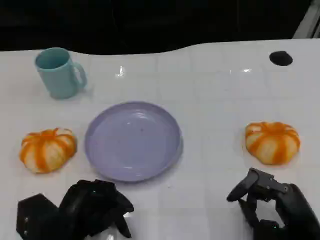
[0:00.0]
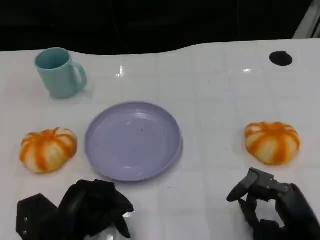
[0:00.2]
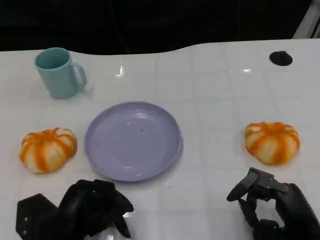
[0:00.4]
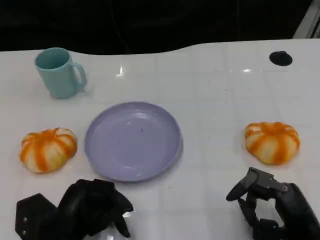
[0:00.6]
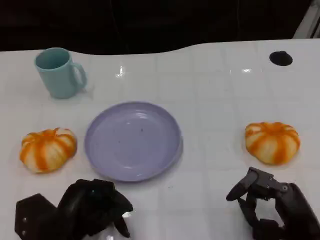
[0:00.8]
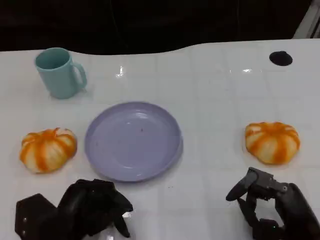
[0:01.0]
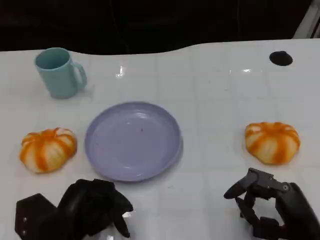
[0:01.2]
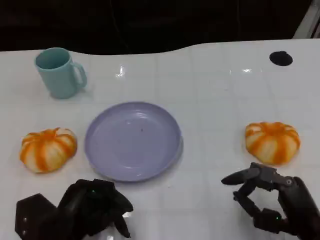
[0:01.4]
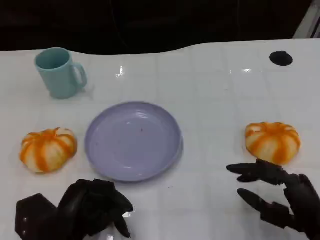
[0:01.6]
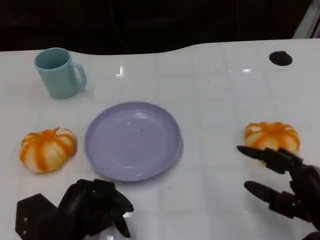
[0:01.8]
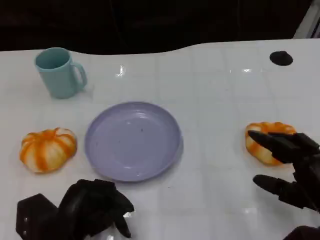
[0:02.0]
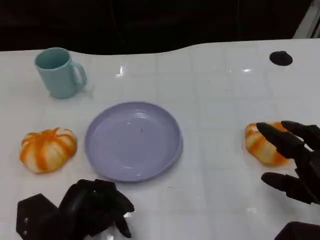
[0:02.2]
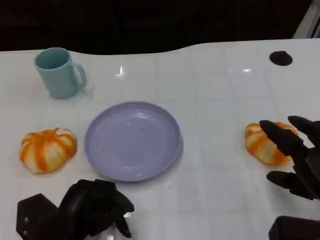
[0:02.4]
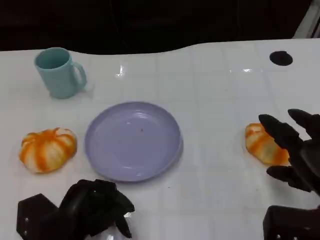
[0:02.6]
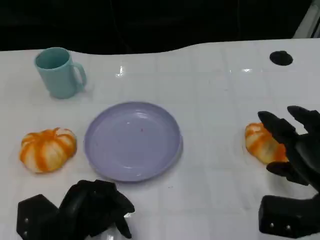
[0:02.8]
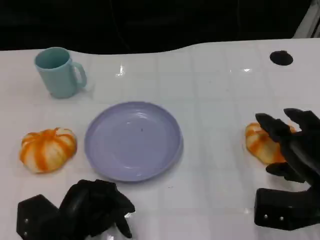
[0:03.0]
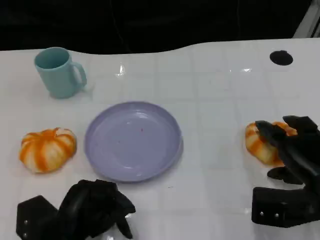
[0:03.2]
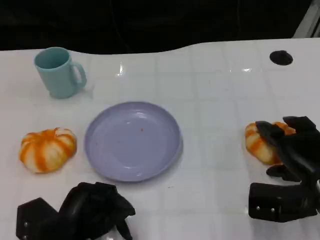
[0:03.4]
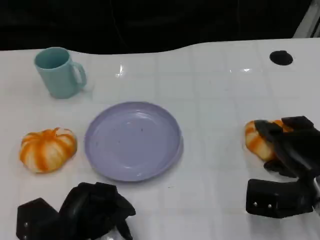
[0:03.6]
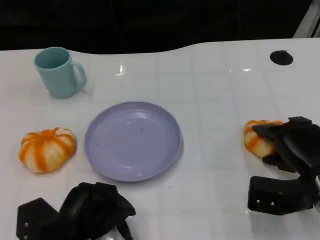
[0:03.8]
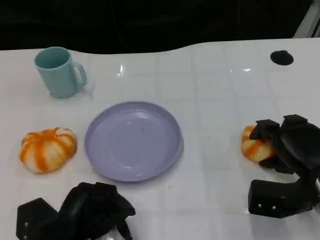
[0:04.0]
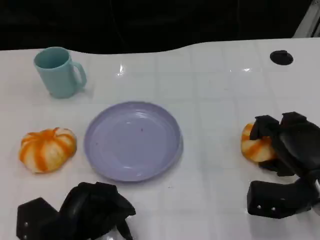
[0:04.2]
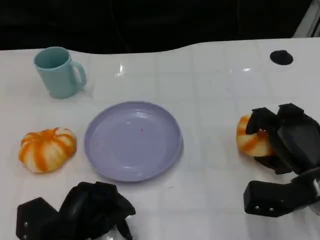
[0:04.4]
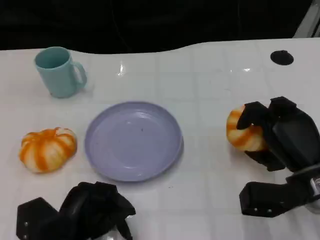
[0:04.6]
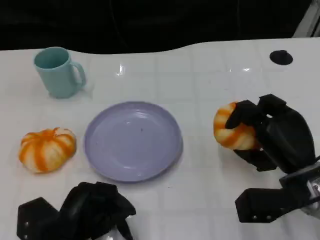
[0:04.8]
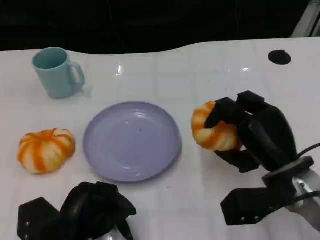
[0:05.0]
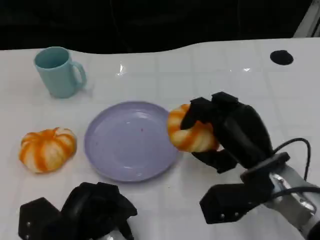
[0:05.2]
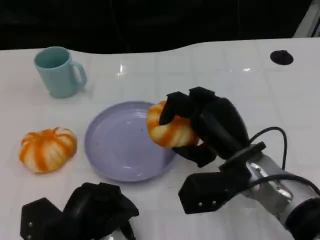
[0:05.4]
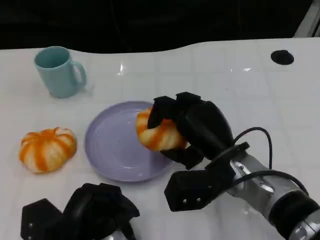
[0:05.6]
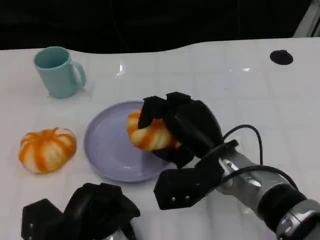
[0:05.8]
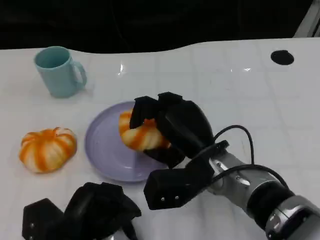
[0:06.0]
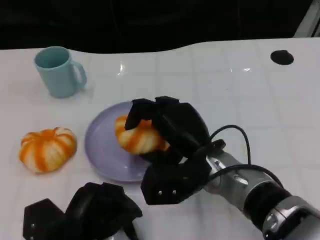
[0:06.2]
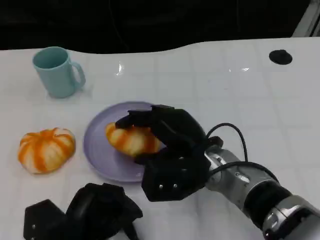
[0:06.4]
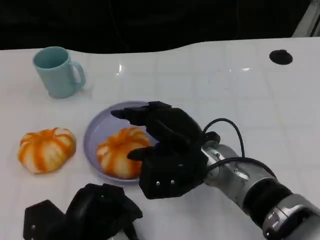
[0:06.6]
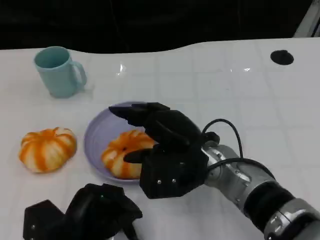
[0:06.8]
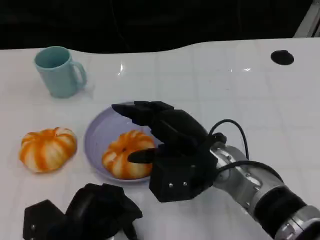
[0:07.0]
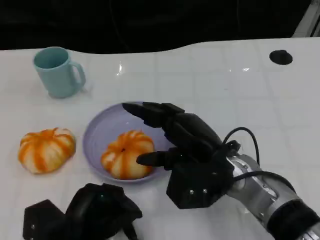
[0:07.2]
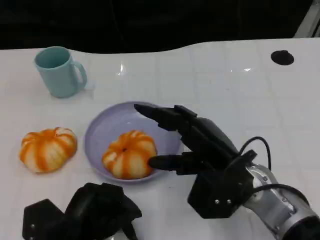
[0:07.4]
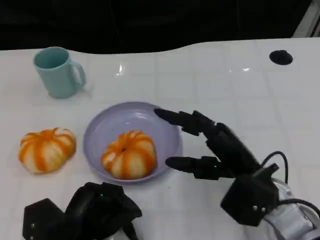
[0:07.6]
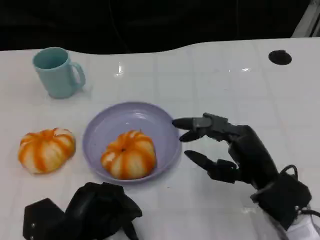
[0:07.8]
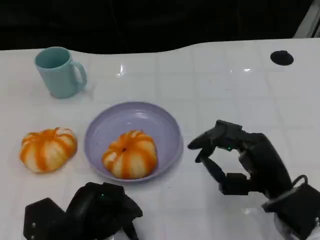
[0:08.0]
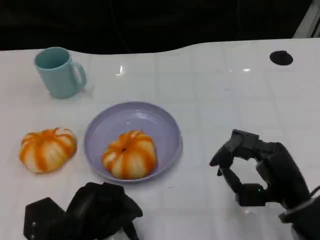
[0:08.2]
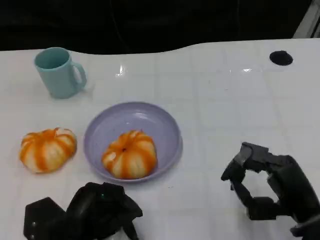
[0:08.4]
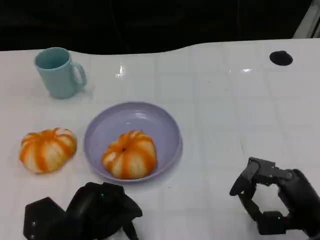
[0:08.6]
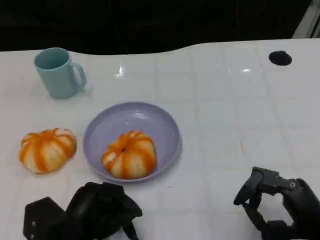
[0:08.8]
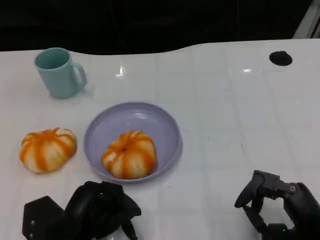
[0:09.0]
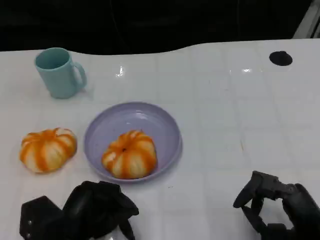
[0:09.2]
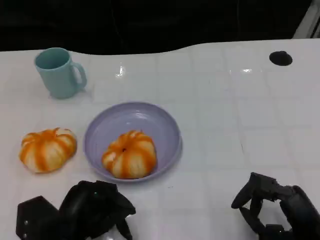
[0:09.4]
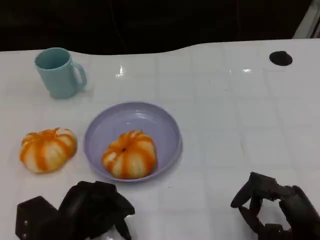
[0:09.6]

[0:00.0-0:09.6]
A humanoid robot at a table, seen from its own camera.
Task of the whole recording: Grasp the bread from the table and place it into the plate.
0.0 to 1.6 s: The hands make only small movements.
1.6 to 3.2 s: The right hand travels forward by about 5 cm.
4.8 to 6.4 s: The right hand moves to the left, approximately 15 cm.
6.4 to 8.0 s: The right hand is displaced to the right and backward by roughly 15 cm.
8.0 to 9.6 s: The right hand shifts approximately 5 cm backward.

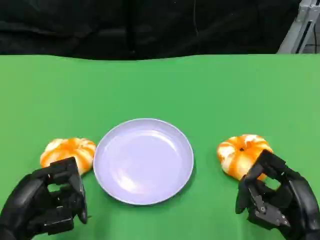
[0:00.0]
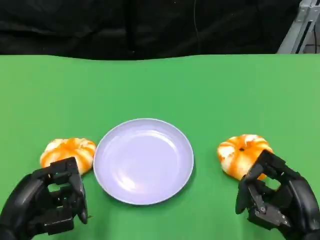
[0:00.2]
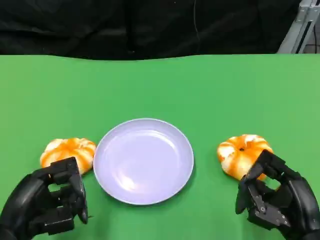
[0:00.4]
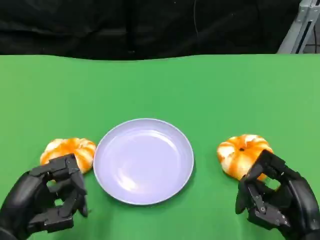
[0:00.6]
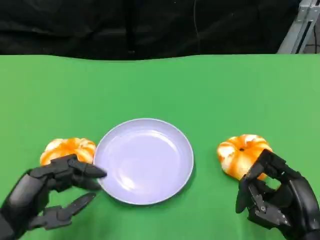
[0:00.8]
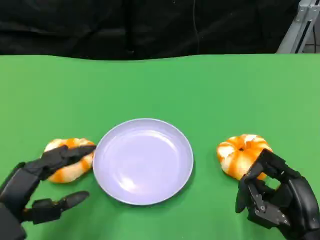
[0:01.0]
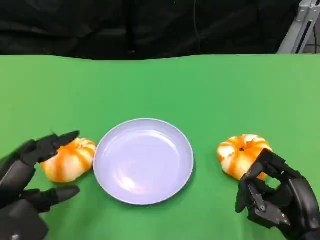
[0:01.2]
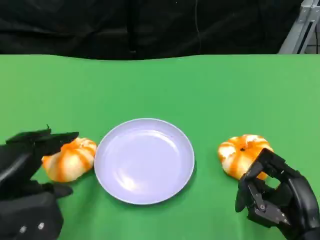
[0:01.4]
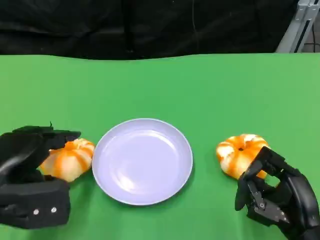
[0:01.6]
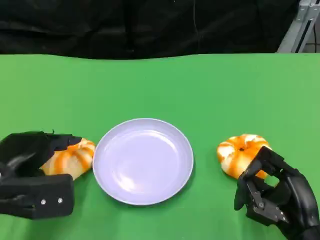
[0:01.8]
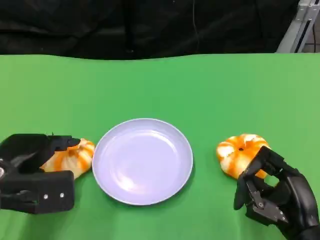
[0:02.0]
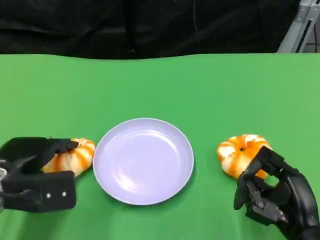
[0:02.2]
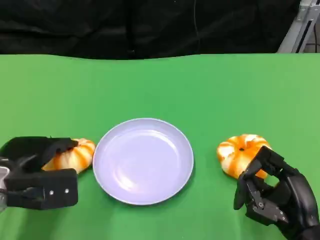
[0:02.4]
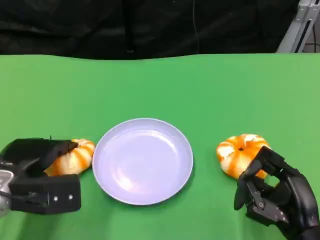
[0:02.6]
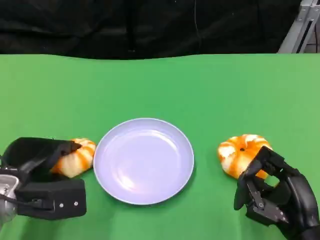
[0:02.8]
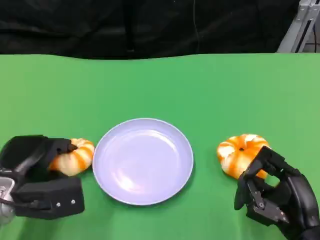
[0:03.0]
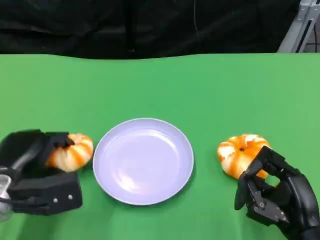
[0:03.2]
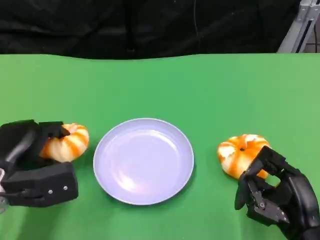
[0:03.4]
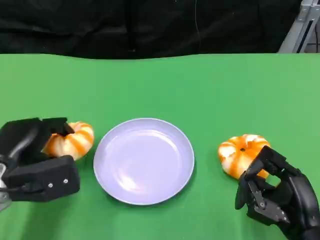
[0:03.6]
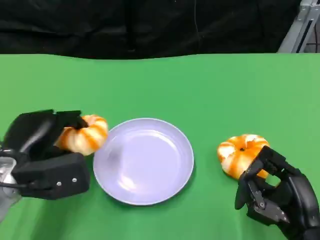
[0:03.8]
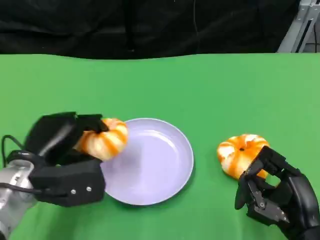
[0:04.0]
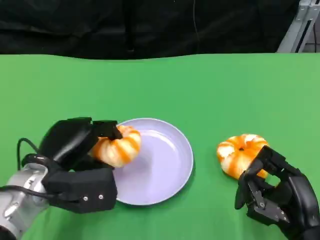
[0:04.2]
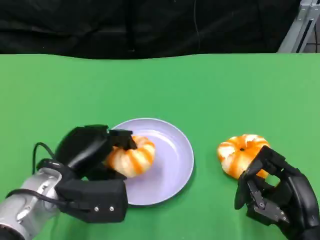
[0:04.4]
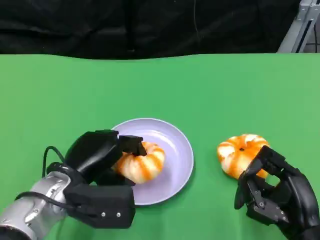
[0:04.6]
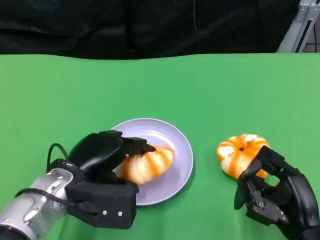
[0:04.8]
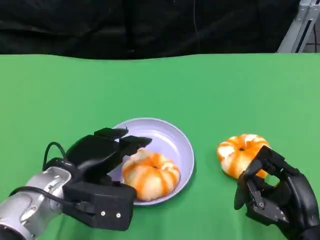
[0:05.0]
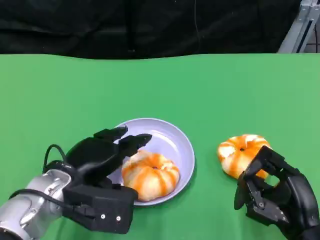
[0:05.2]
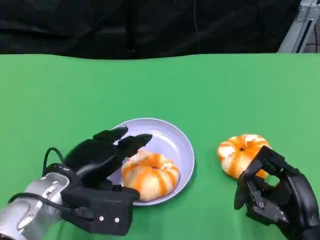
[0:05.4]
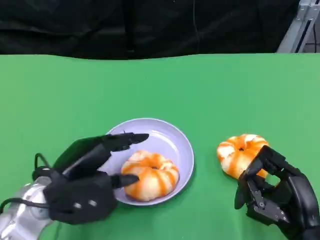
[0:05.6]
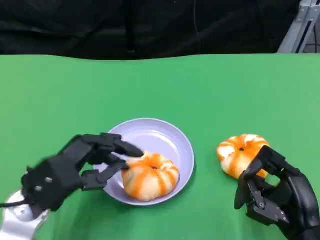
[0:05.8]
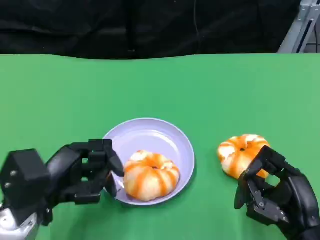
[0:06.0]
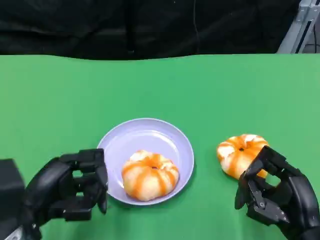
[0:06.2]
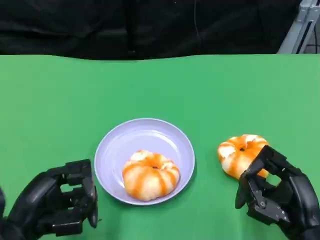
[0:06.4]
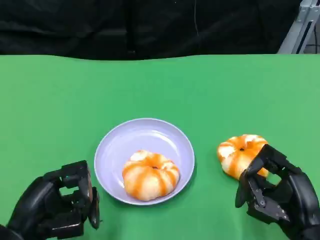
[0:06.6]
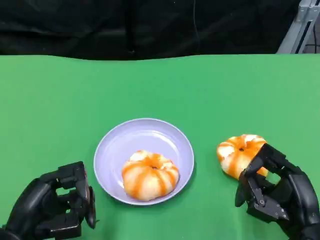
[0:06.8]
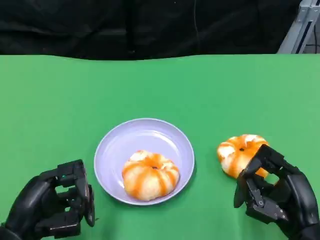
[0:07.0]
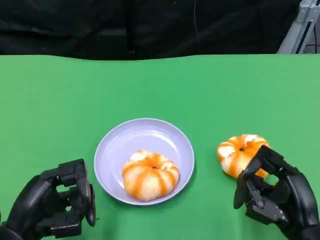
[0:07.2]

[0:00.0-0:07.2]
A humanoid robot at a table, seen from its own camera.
Task of the whole recording: Grasp the bread from the table and place it into the plate.
0.0 to 1.4 s: The left hand ends up approximately 5 cm from where it was.
1.4 to 2.8 s: The left hand heads downward and forward, covering roughly 10 cm.
2.8 to 4.4 s: The left hand is displaced to the right by about 5 cm.
5.8 to 7.2 s: The left hand goes some 5 cm backward.

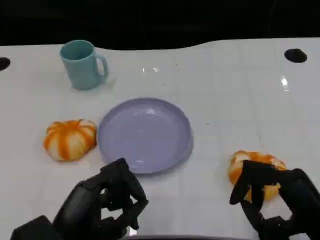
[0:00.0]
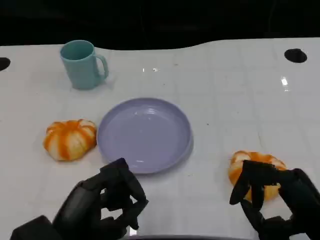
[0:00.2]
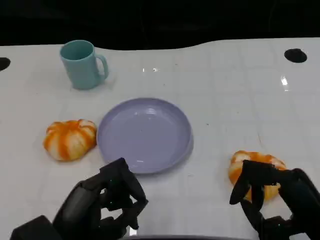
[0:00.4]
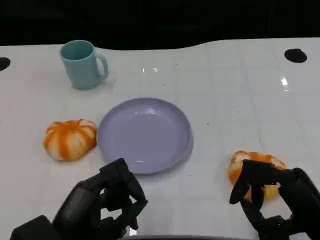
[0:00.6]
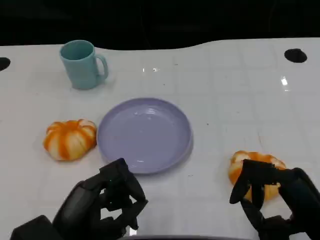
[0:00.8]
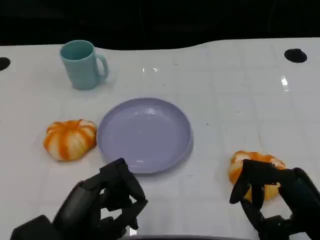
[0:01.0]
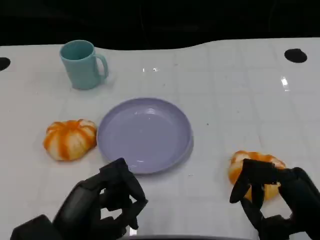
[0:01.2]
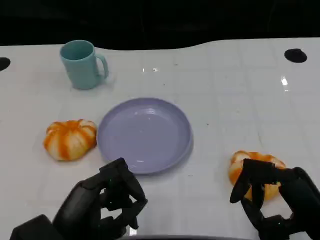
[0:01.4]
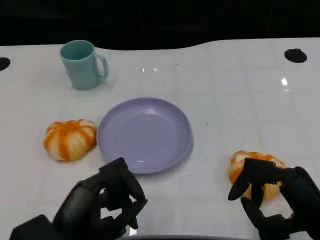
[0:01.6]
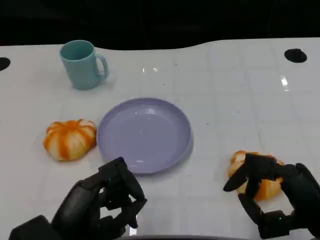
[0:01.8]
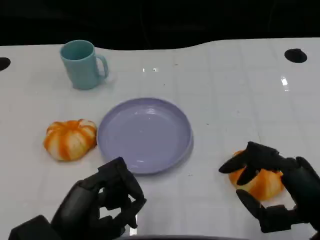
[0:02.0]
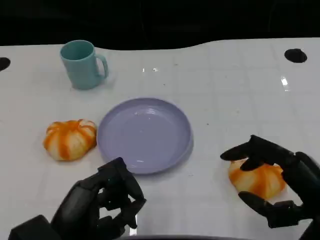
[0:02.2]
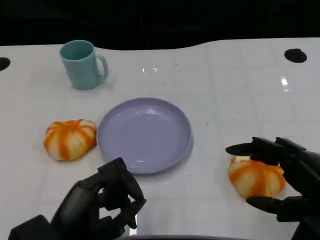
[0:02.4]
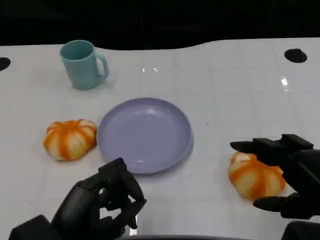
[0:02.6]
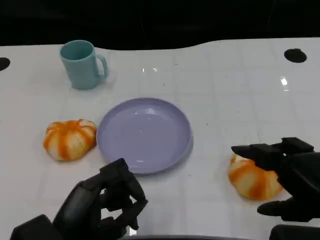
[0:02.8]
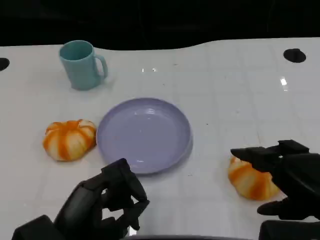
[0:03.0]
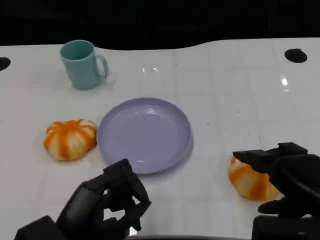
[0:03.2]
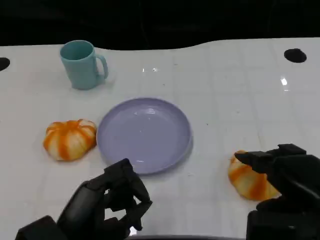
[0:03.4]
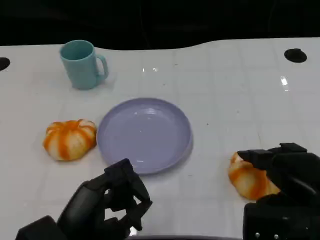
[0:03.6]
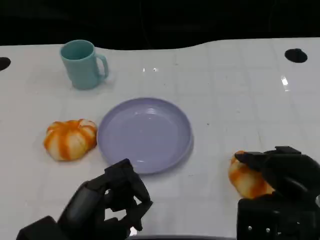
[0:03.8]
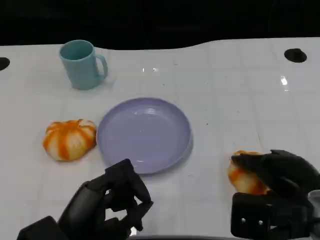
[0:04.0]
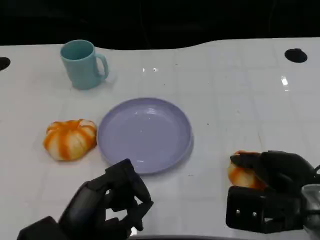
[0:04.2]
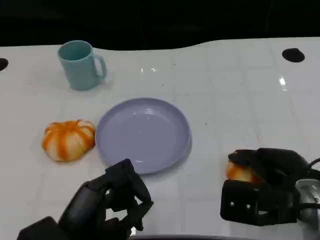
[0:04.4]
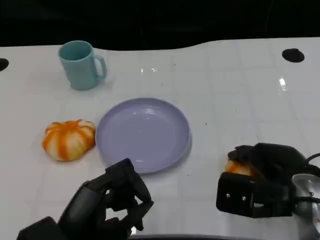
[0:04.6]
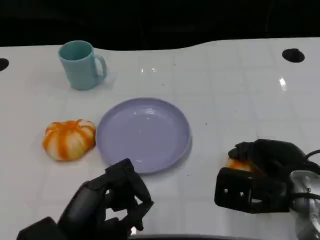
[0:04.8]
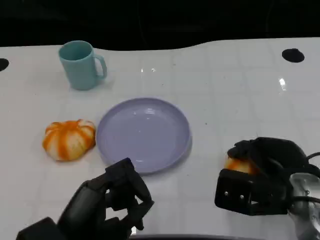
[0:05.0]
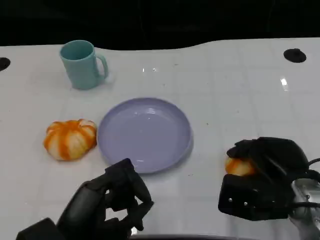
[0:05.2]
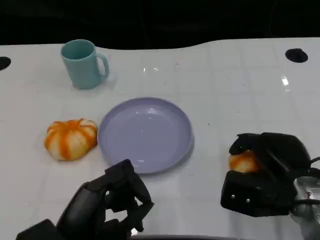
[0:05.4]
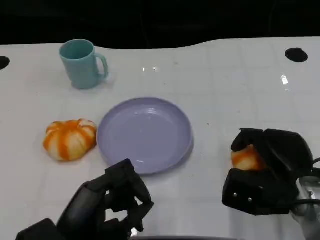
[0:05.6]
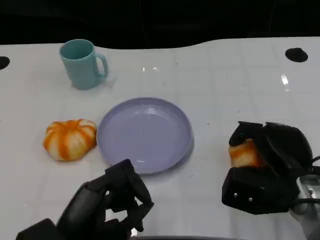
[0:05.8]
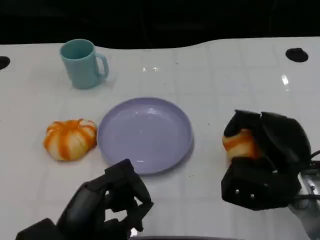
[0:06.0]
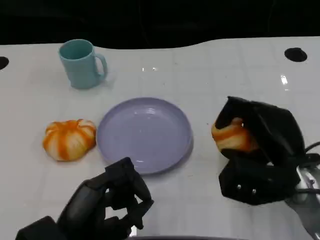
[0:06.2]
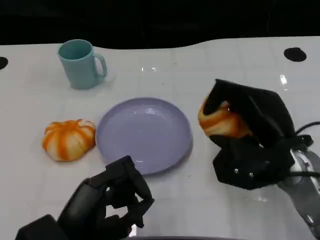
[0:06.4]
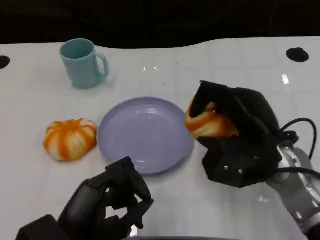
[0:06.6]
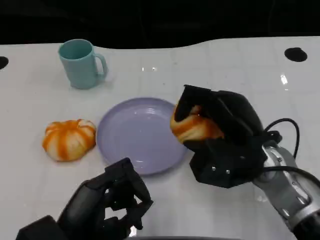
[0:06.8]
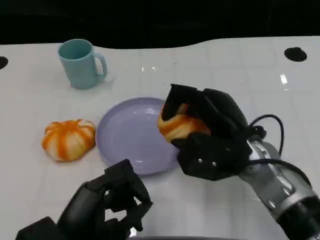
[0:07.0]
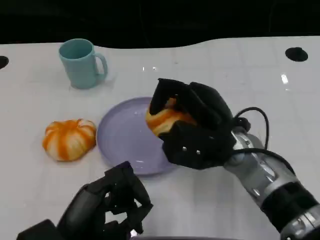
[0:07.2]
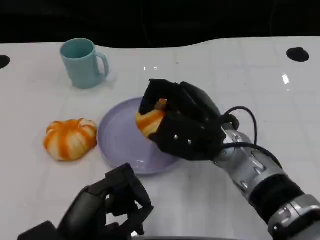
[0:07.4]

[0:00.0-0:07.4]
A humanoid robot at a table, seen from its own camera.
Task of the whole recording: Grasp the bread from the table and place it into the plate.
0.0 to 1.4 s: Both hands stay about where they are.
1.4 to 3.0 s: The right hand is displaced upward by some 5 cm.
3.0 to 4.4 s: The right hand travels forward by roughly 5 cm.
6.0 to 7.4 s: The right hand goes about 10 cm to the left.
